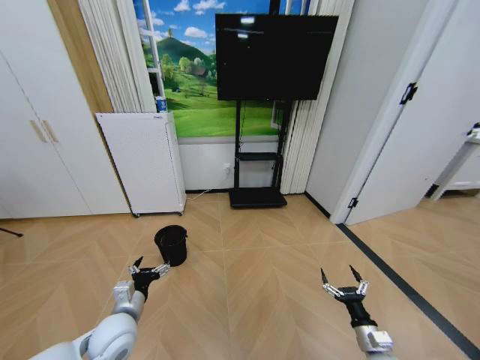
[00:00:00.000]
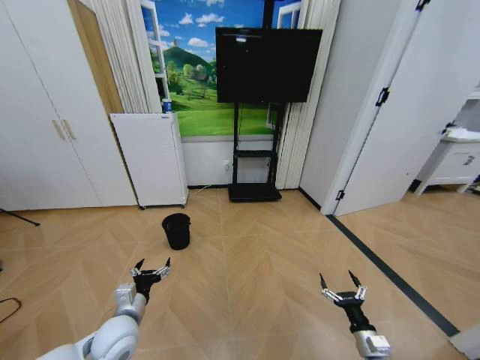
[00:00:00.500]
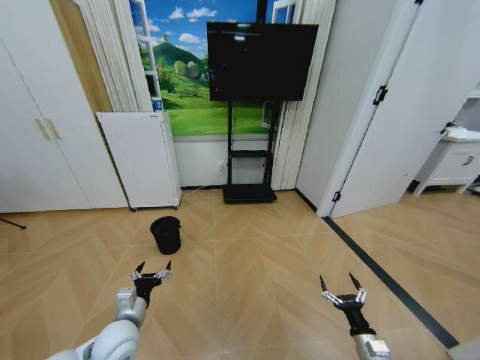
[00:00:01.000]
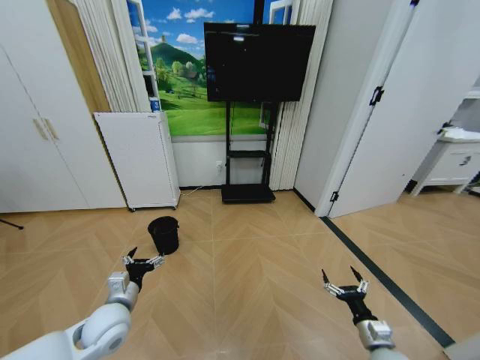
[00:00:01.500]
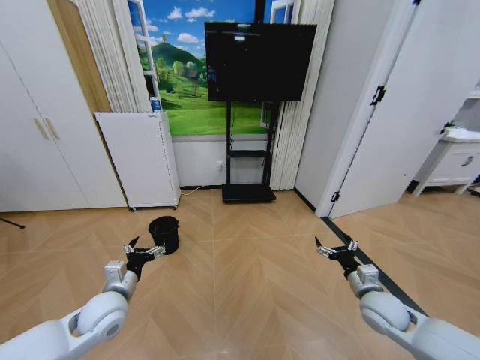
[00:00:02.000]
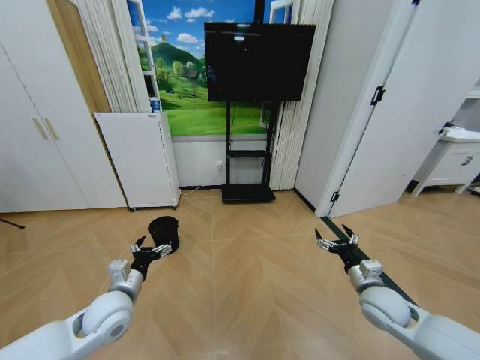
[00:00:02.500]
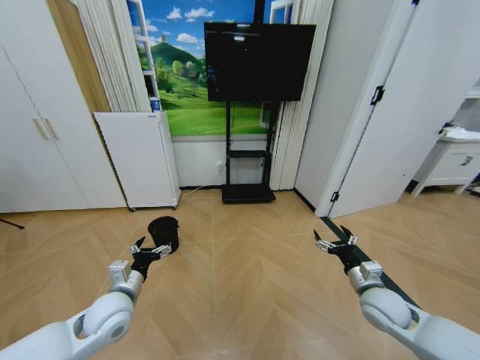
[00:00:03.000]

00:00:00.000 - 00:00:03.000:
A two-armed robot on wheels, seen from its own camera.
Task of the whole recording: Pick up the trash bin and place the garbage on the floor into it.
00:00:01.500 - 00:00:03.000: The right gripper shifts about 15 cm upward and forward.

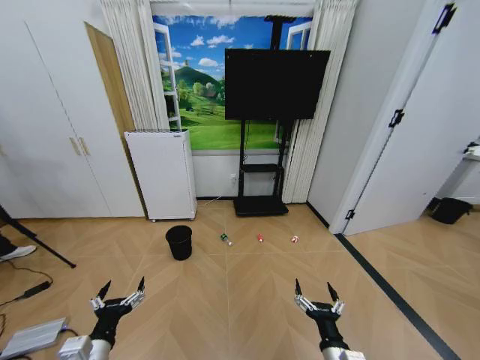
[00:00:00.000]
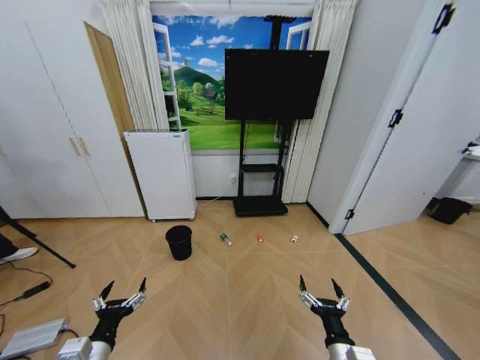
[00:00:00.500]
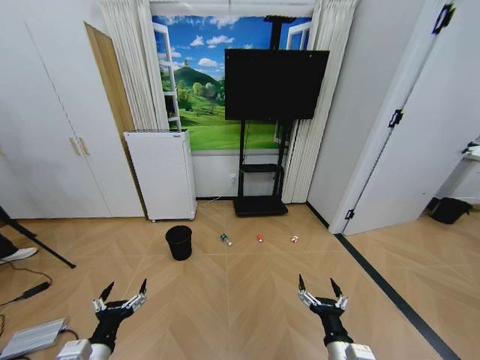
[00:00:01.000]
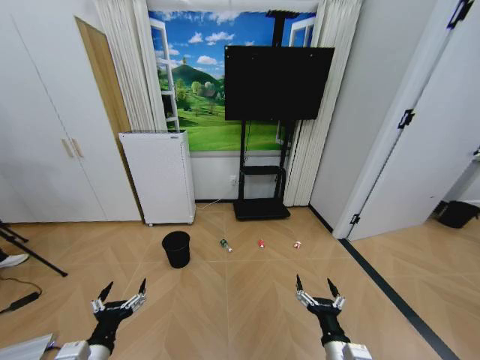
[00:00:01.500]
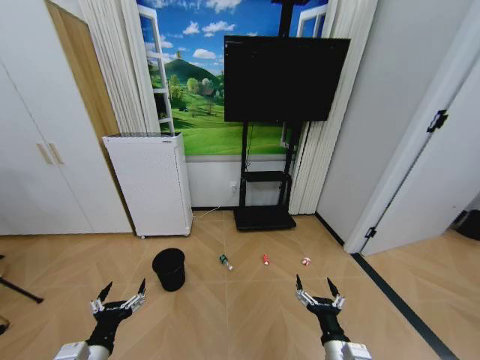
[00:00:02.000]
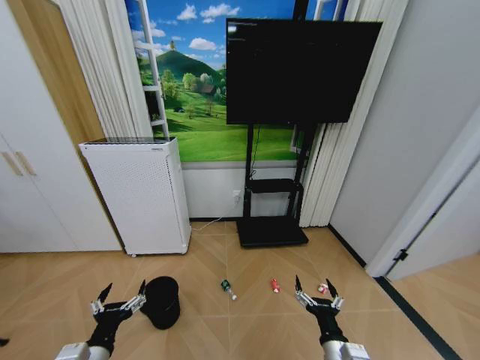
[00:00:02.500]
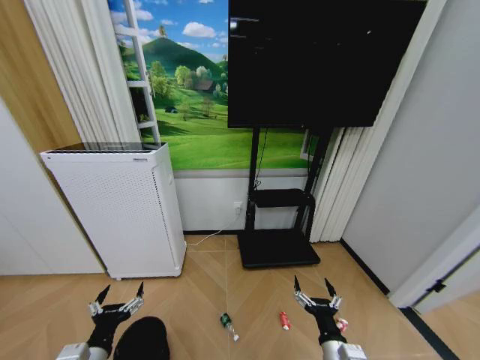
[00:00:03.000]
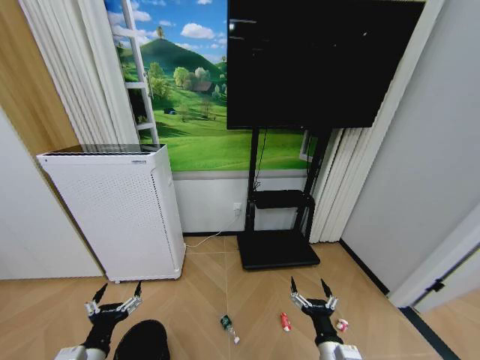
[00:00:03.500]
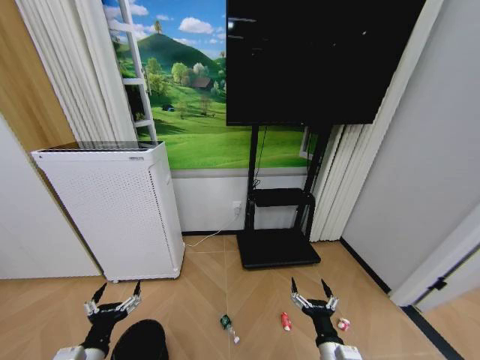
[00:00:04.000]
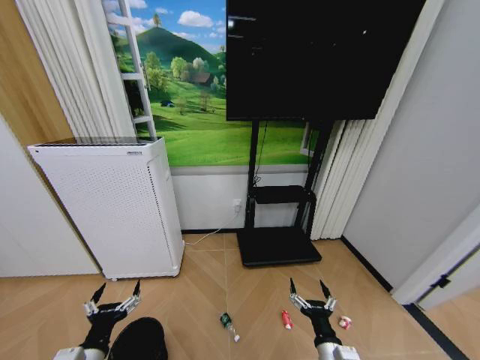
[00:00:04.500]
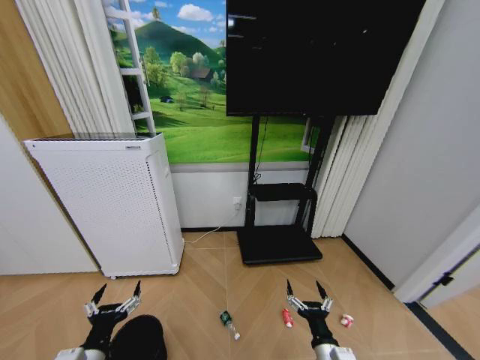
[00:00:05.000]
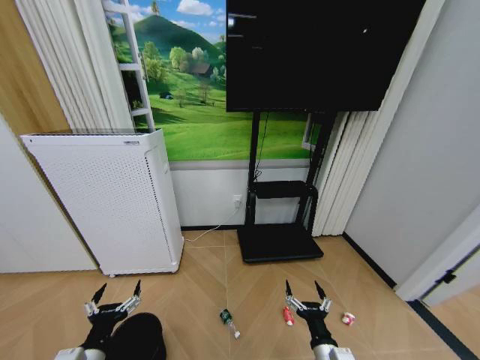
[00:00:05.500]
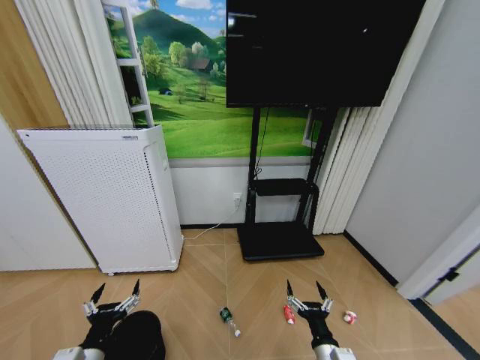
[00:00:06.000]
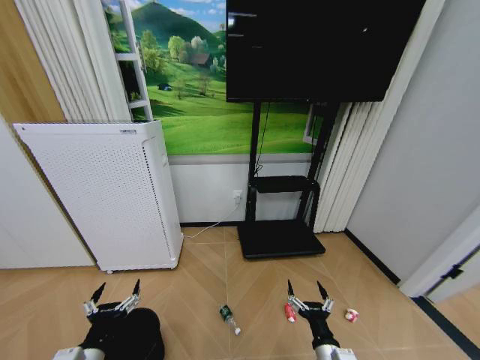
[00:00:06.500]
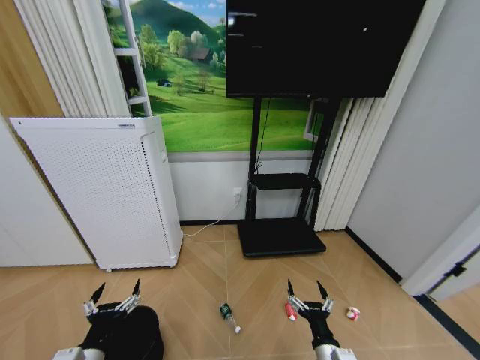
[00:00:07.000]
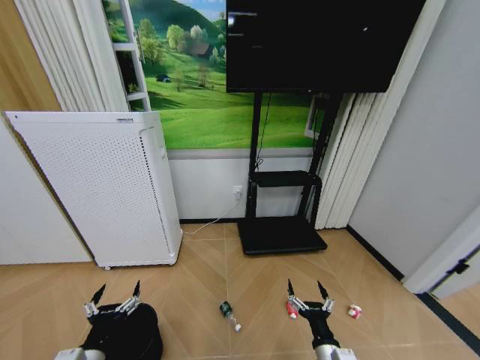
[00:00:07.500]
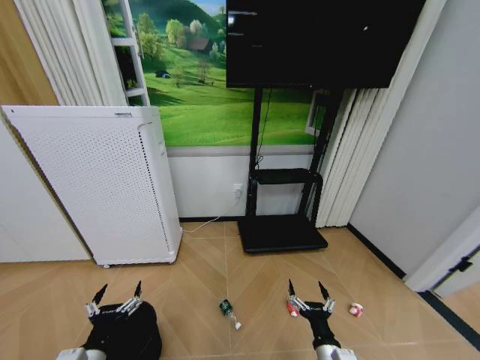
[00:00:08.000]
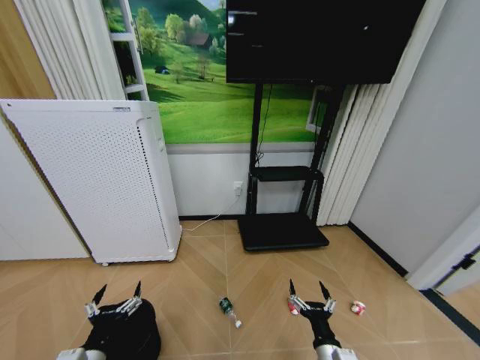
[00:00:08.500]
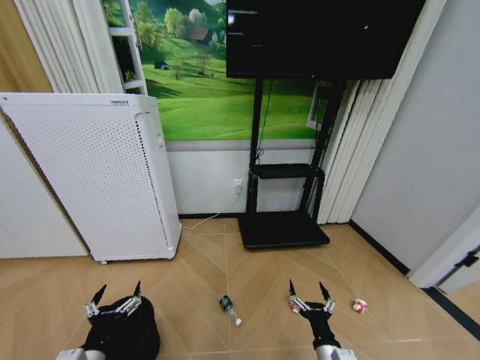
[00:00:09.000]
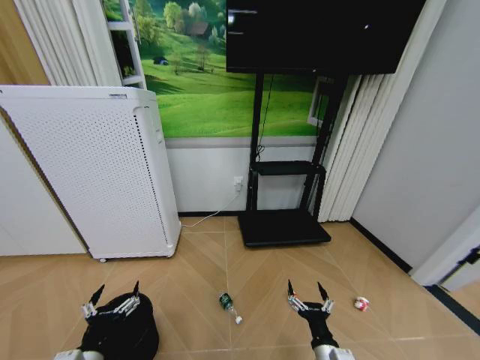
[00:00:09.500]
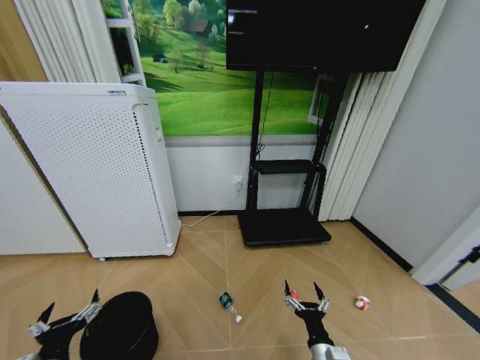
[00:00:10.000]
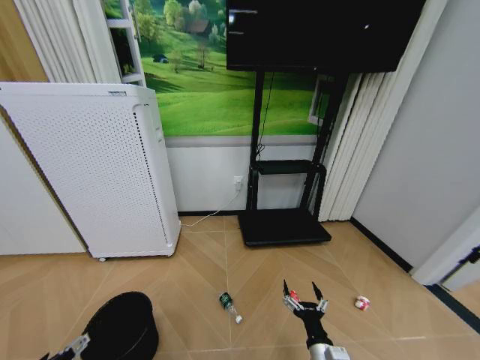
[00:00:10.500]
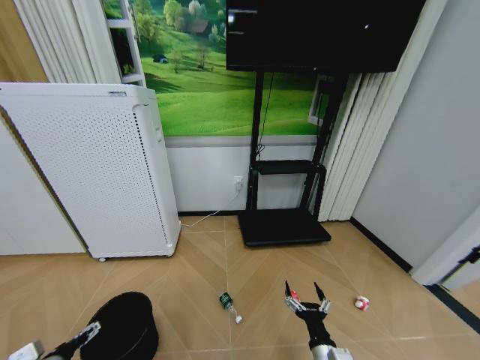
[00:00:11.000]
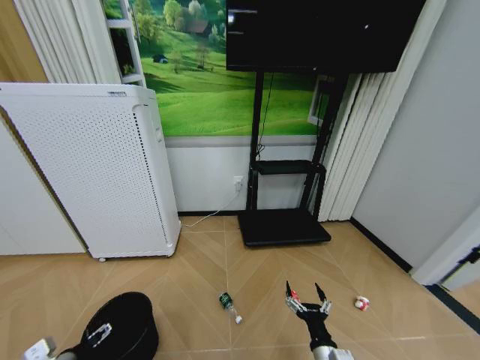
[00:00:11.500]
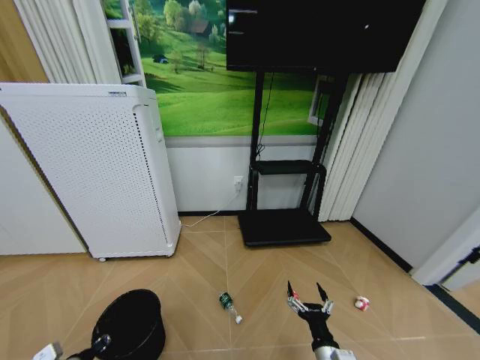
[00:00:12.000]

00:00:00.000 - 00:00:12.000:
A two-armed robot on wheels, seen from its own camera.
Task of the whole recording: Pick up the trash bin and place the garbage on the floor into it.
00:00:04.000 - 00:00:08.000: Both grippers stay about where they are.
00:00:08.000 - 00:00:10.000: The grippers stay close to where they were, moving slightly.
00:00:10.000 - 00:00:12.000: The left gripper goes roughly 15 cm downward, to the left and forward, and closes.

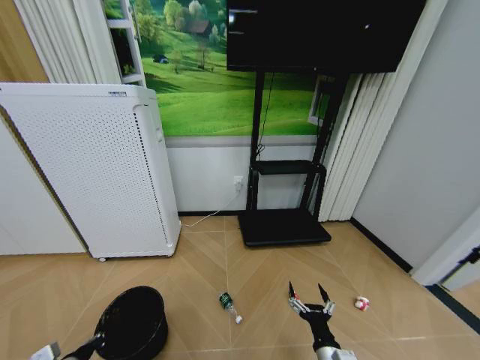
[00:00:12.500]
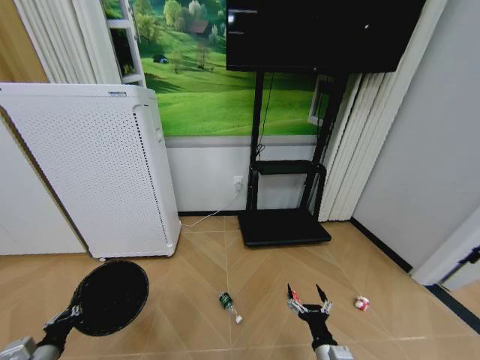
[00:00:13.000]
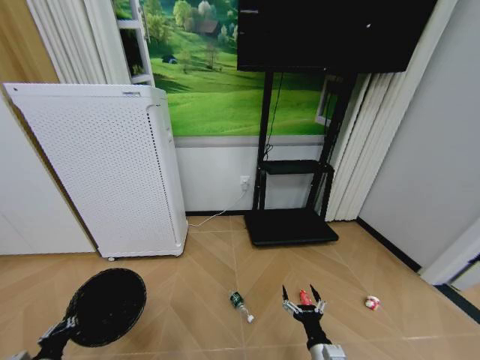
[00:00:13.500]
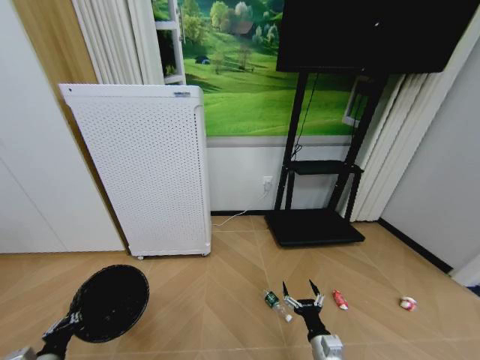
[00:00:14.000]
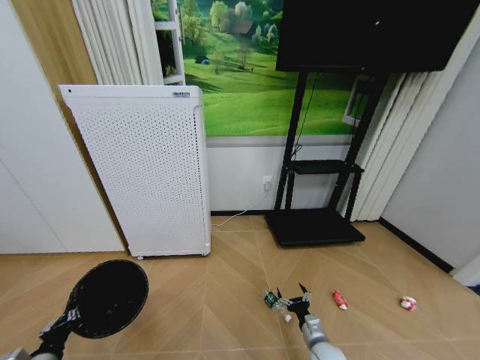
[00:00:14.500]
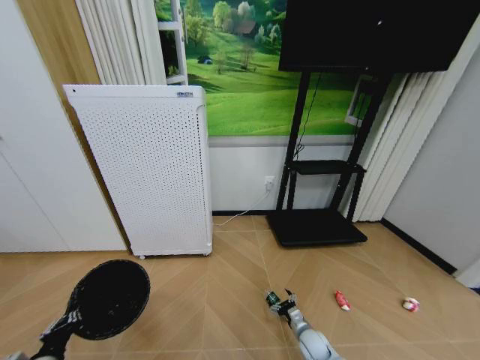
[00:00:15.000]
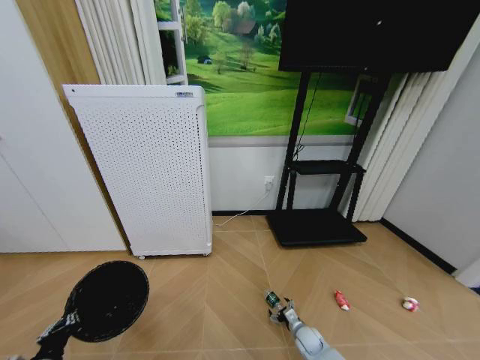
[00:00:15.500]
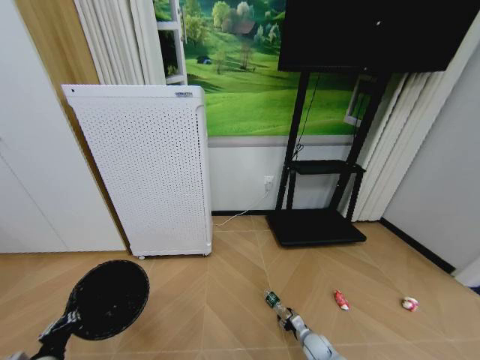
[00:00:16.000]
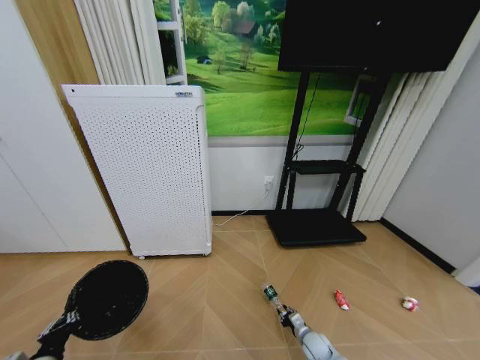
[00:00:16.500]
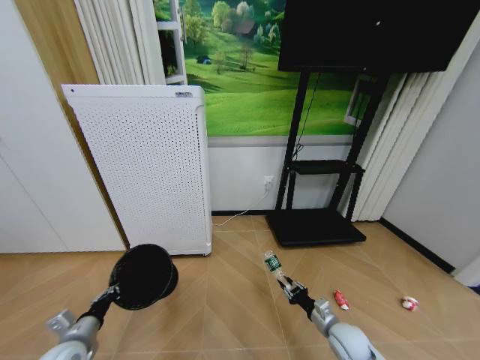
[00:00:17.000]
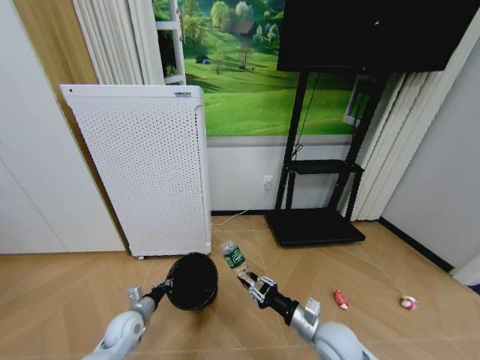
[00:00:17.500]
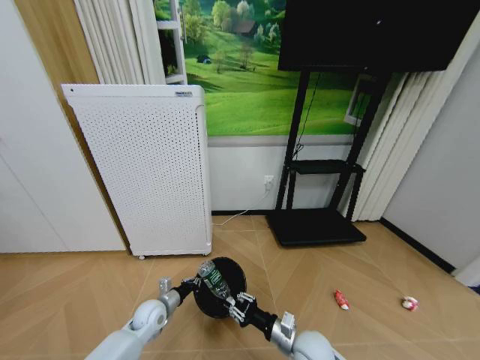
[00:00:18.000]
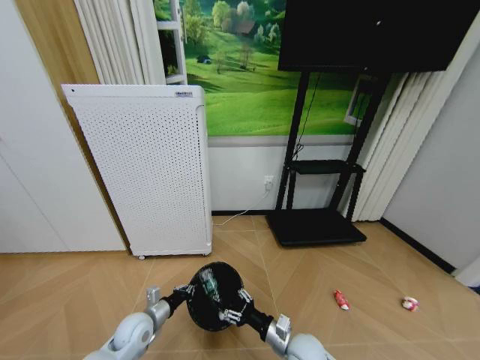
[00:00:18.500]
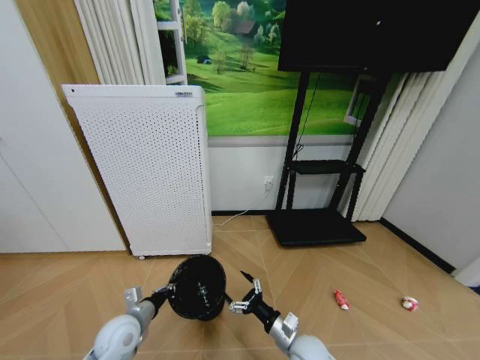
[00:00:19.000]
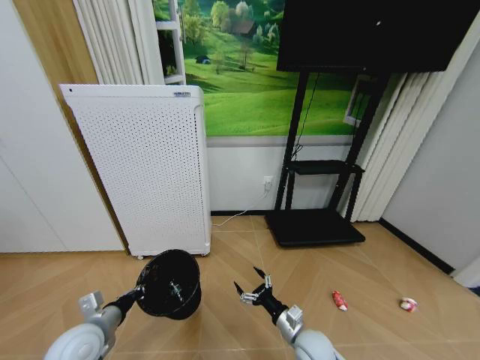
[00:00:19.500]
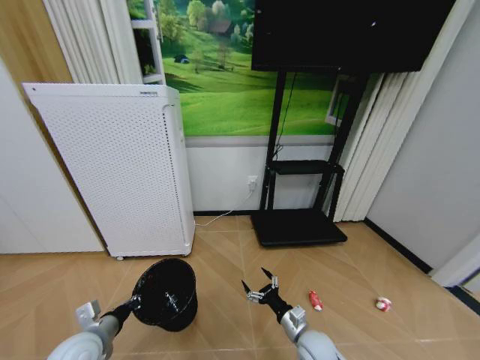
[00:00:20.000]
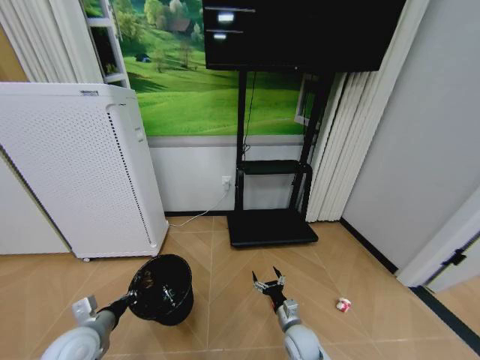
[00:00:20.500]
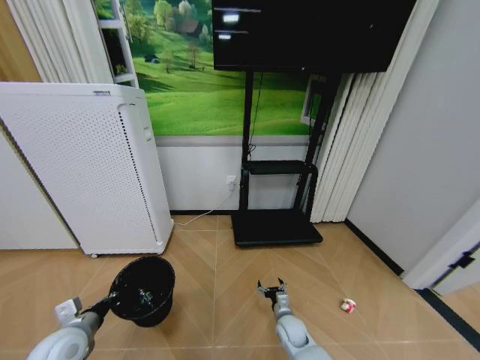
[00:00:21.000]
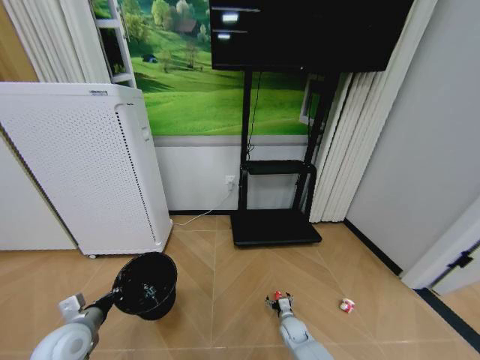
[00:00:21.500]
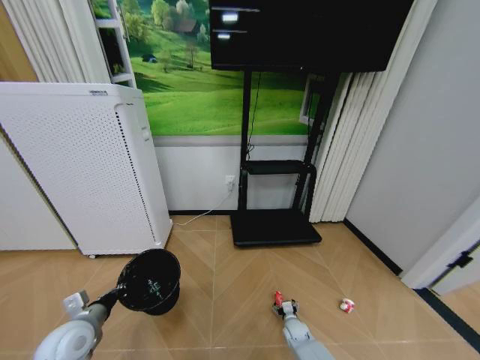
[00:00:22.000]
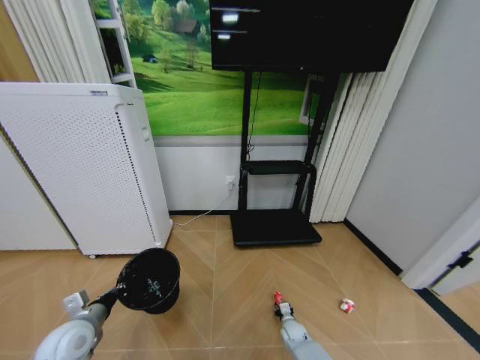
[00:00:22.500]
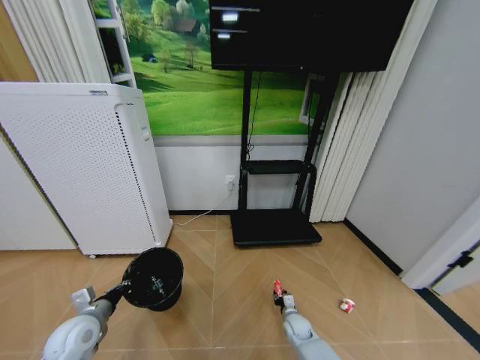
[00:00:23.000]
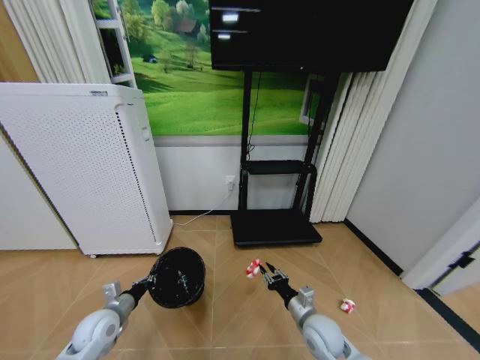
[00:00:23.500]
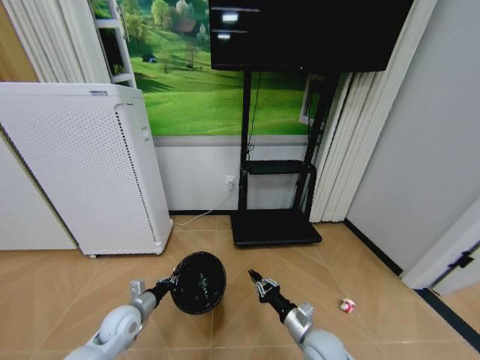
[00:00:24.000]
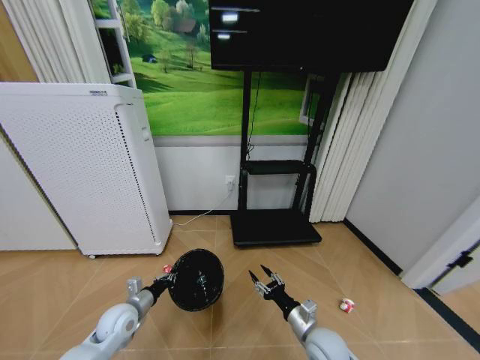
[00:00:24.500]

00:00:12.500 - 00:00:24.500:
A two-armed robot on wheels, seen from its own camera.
Task of the whole recording: Pick up the trash bin and place the garbage on the floor into it.
00:00:12.500 - 00:00:14.500: The right gripper travels forward and downward by roughly 15 cm.
00:00:14.500 - 00:00:16.500: The right gripper heads downward and forward, covering about 10 cm, and closes.
00:00:16.500 - 00:00:18.500: The right gripper is displaced upward and to the left by about 20 cm, and opens; the left gripper heads forward and to the right, covering about 20 cm.
00:00:18.500 - 00:00:20.500: The right gripper goes approximately 5 cm downward, and opens its fingers. The left gripper travels upward, to the left and backward by approximately 15 cm.
00:00:20.500 - 00:00:22.500: The right gripper is displaced downward and forward by roughly 15 cm, and closes its fingers.
00:00:22.500 - 00:00:24.500: The right gripper goes about 25 cm upward and backward, while the left gripper shifts about 10 cm to the right, forward and downward.
